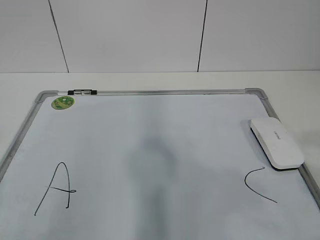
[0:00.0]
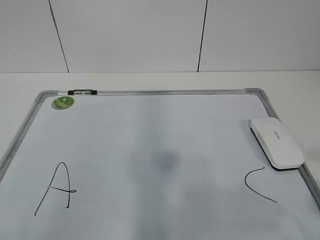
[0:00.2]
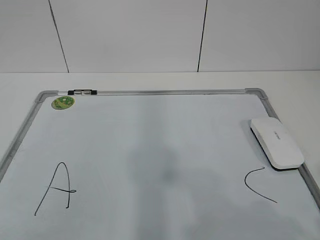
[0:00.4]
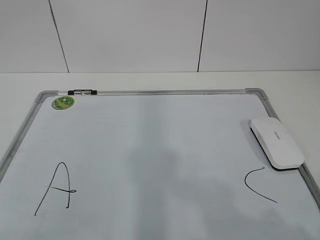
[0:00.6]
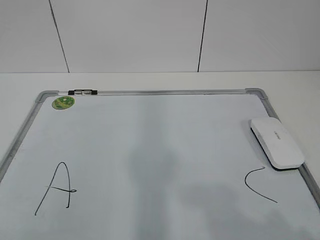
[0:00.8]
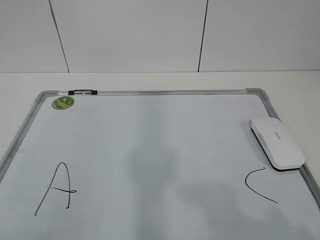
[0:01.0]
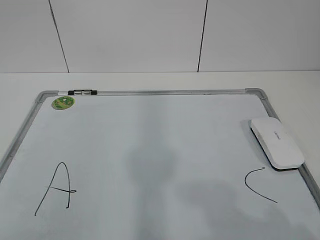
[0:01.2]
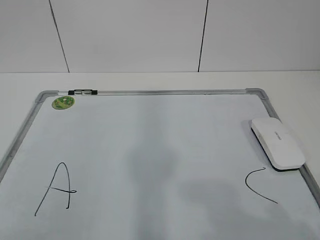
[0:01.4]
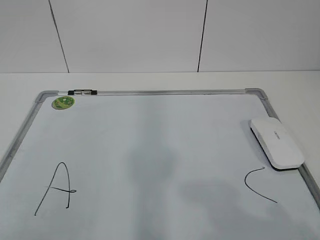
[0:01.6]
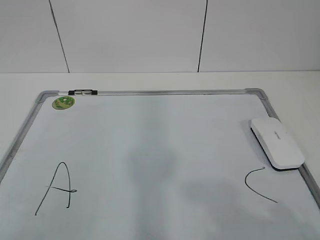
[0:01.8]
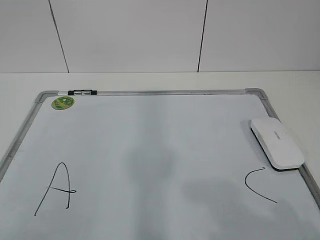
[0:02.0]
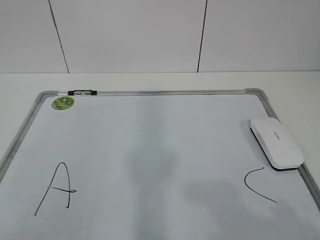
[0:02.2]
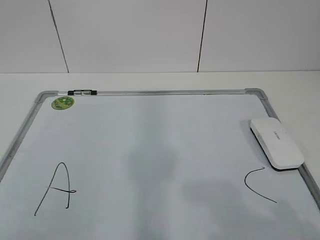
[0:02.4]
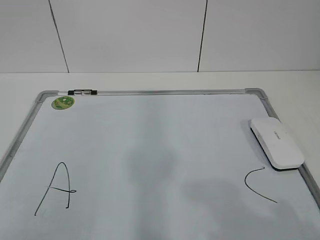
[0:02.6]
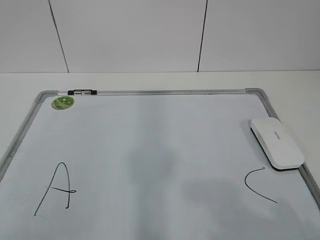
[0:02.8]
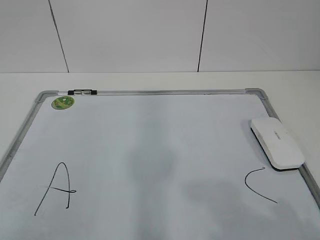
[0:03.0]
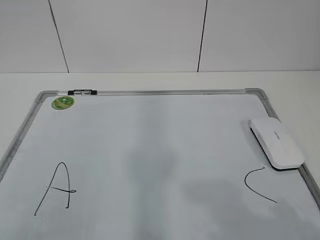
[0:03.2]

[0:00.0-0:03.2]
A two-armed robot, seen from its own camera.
Task of the whole recording: pick up the eraser on the blackboard and erase the letter "B".
0:00.0 to 0:01.6: The left gripper is displaced downward and backward by approximately 5 cm; the right gripper travels downward by about 10 cm.
0:01.6 to 0:03.2: The two grippers keep their place.

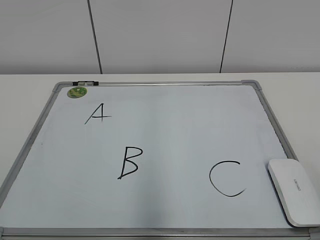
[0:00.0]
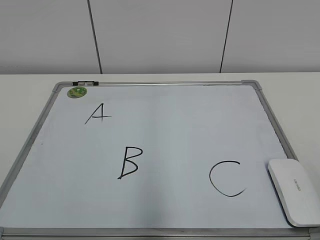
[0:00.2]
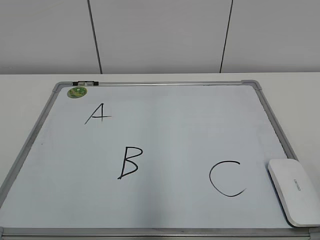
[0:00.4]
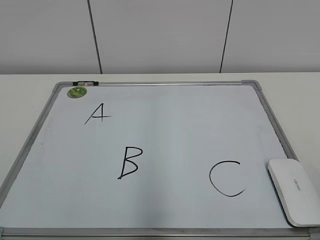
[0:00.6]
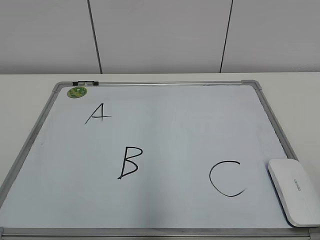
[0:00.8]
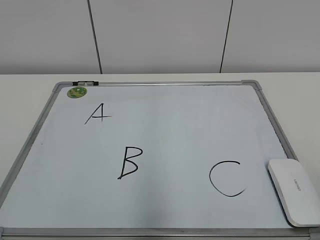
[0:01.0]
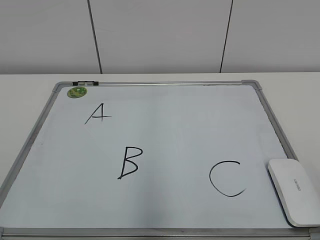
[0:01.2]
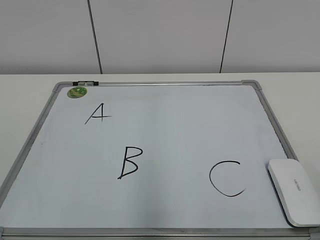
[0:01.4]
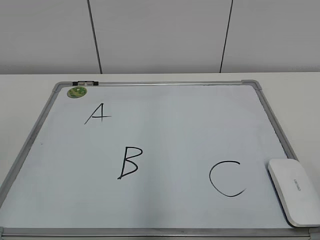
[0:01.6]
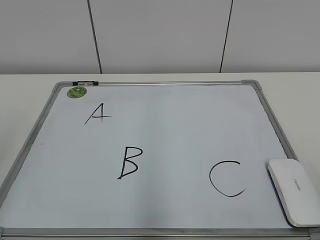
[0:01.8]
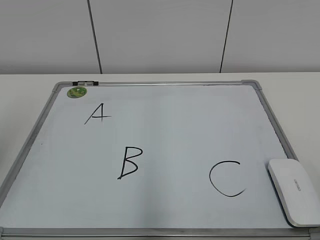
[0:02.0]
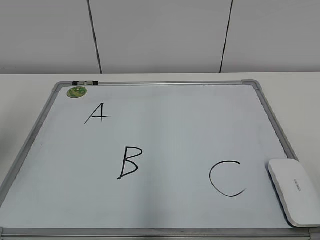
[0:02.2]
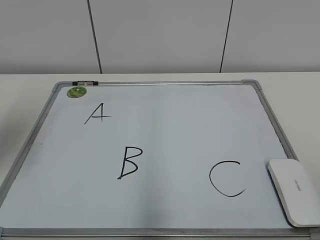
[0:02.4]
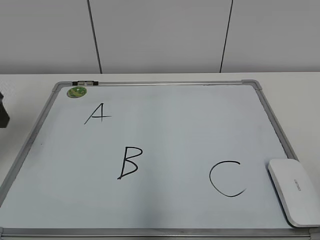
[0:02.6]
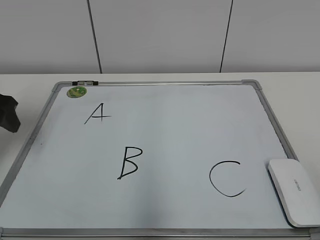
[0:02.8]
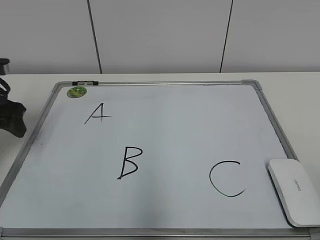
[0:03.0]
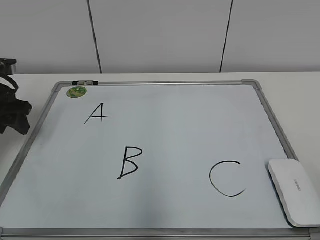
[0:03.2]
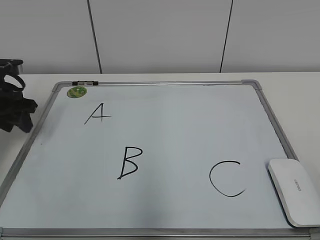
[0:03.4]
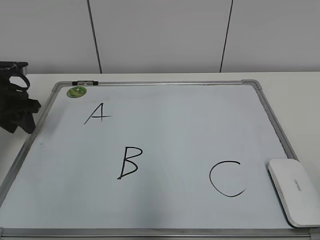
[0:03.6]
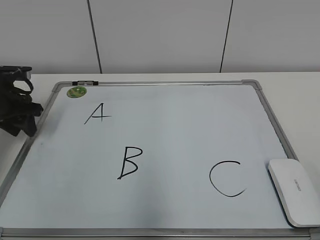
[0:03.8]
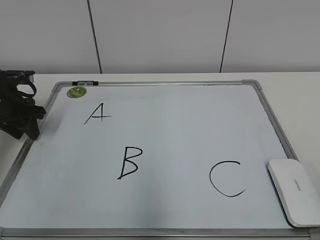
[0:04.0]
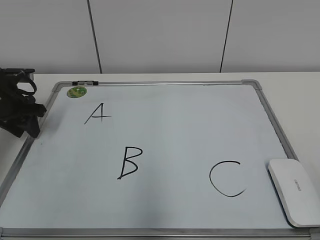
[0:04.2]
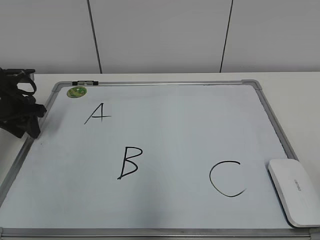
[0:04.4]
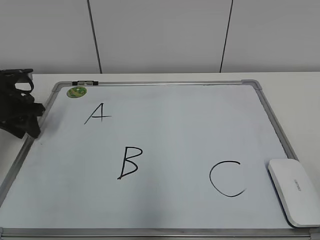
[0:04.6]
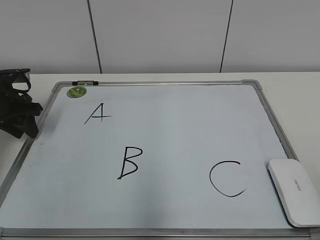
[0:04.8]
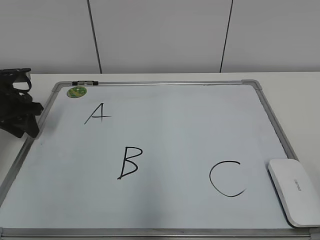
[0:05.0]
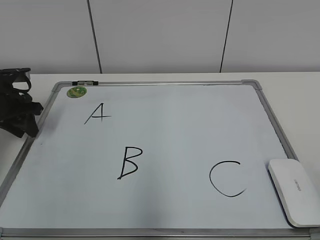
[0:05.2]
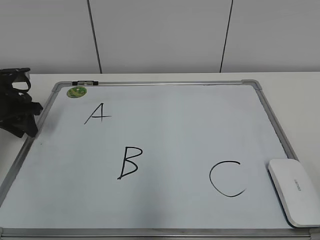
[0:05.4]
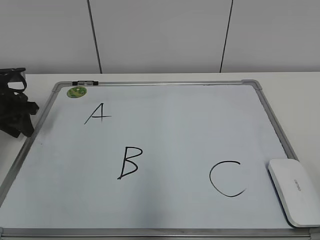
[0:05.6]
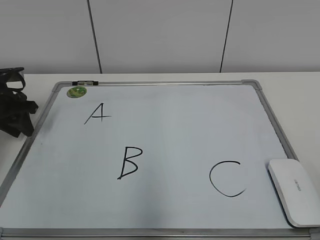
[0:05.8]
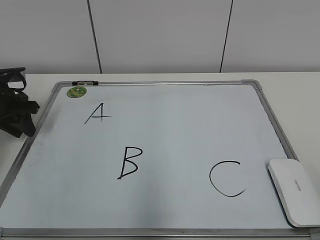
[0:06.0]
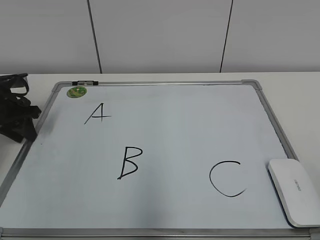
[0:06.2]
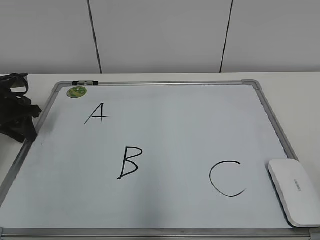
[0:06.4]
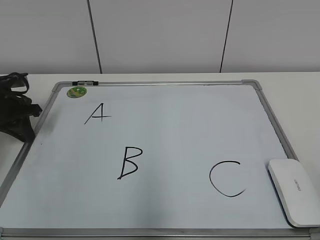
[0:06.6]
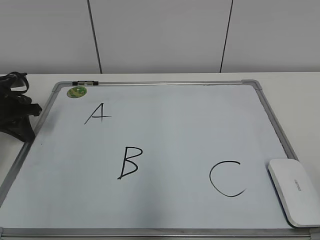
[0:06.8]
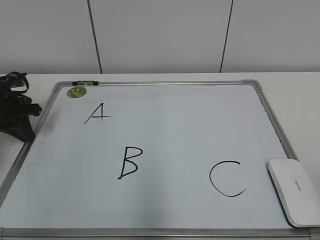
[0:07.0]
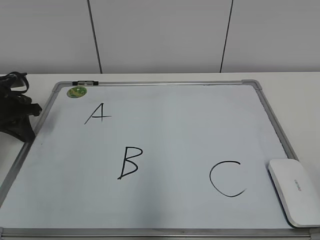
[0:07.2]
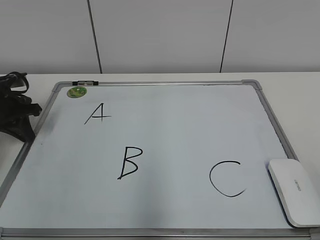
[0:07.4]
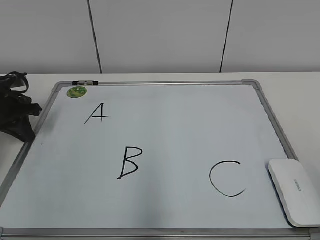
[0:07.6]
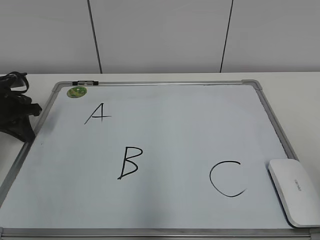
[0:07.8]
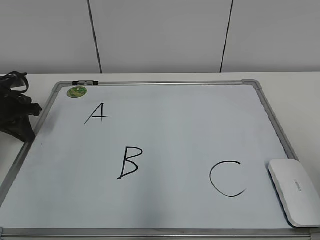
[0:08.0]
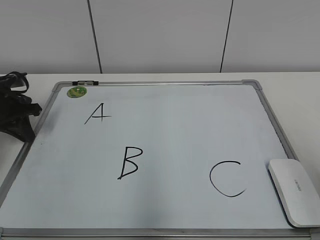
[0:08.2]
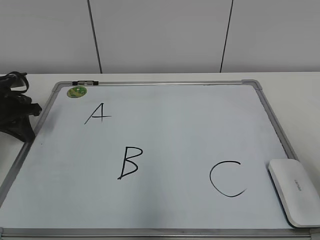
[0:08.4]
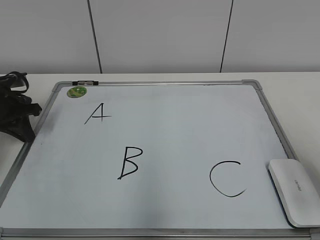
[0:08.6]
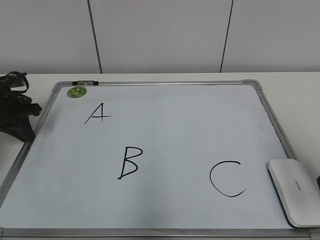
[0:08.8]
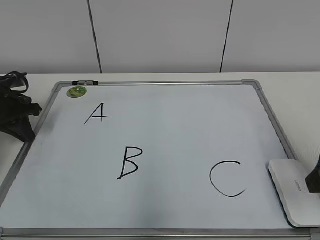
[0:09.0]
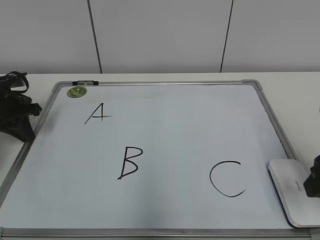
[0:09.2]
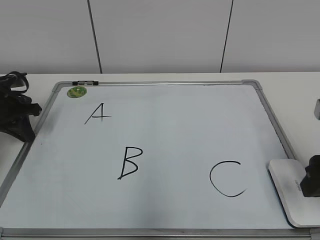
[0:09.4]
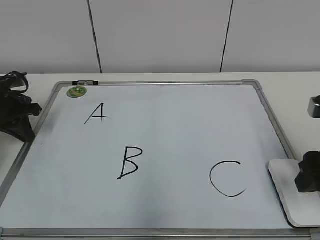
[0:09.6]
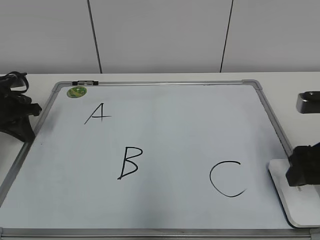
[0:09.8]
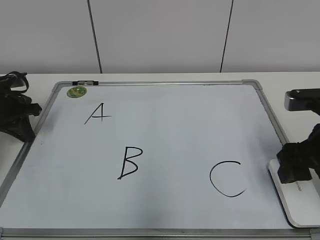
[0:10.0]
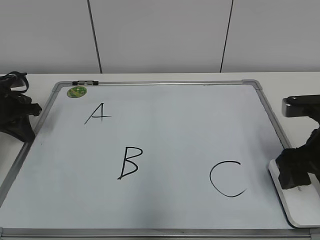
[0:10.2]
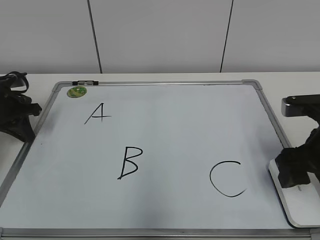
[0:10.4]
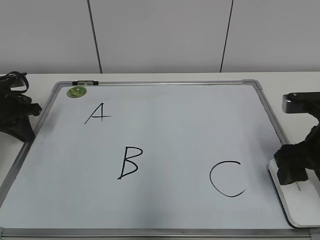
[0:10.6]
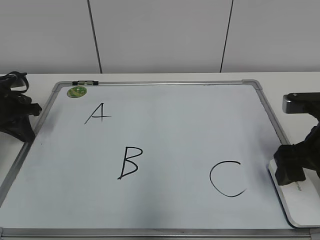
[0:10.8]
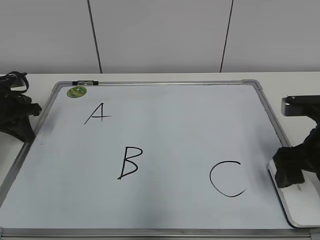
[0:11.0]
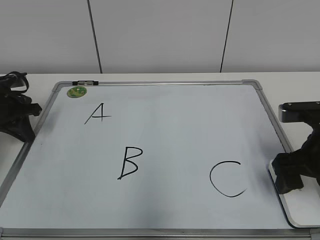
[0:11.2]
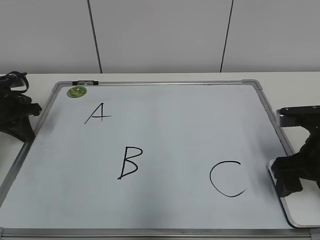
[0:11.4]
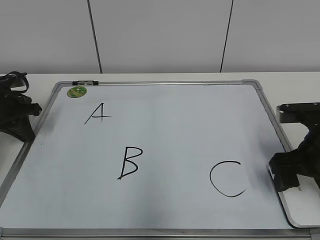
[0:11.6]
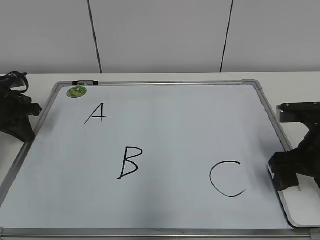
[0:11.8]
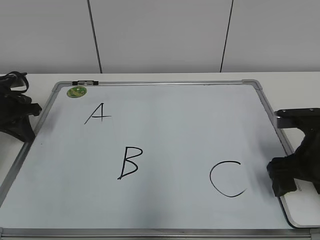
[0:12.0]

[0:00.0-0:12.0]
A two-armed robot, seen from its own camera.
Task of the whole recording: pick up the eraser on the blackboard and erase the letter "B".
Step, 0:00.0 to 0:07.4: Hold the drawing board steady with your left hand.
Step, 0:07.6 to 0:11.2: Grab the eraser with your right hand.
0:01.6 to 0:03.0: The left gripper moves forward and downward, about 30 cm.
0:03.0 to 0:04.4: The left gripper shifts roughly 5 cm forward.
0:04.4 to 0:06.0: There are only small adjustments of the grippers.
0:06.0 to 0:07.6: The left gripper closes its fingers.
0:07.6 to 0:09.0: The right gripper moves forward, about 15 cm.
0:09.0 to 0:10.4: The right gripper moves forward, some 5 cm.
0:10.4 to 0:12.0: The right gripper opens its fingers.

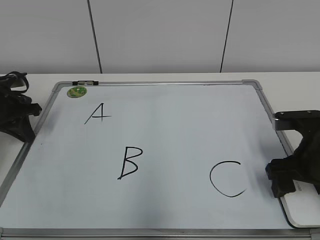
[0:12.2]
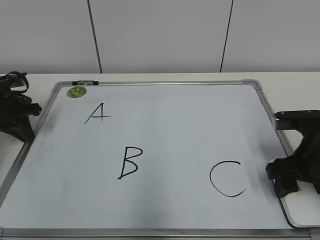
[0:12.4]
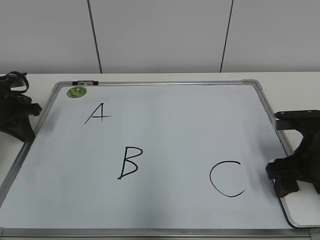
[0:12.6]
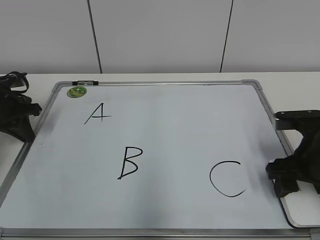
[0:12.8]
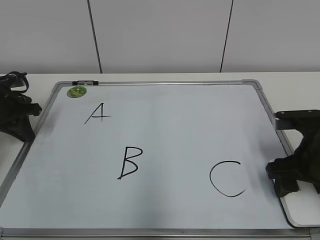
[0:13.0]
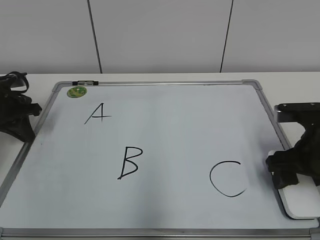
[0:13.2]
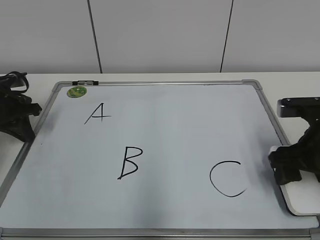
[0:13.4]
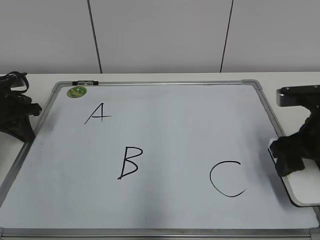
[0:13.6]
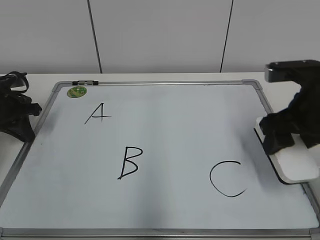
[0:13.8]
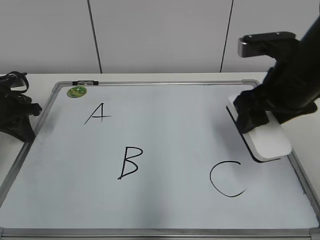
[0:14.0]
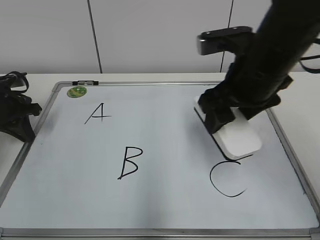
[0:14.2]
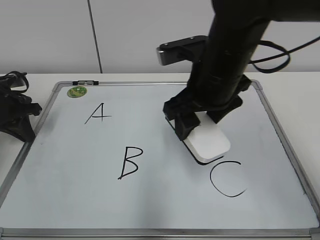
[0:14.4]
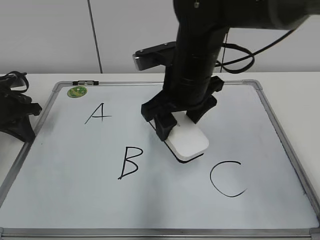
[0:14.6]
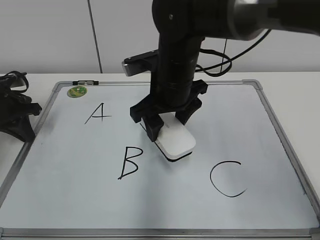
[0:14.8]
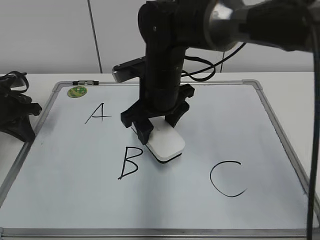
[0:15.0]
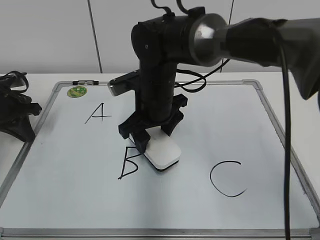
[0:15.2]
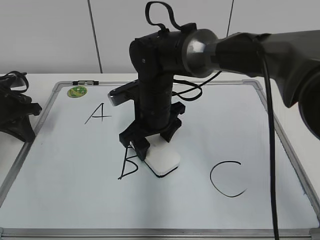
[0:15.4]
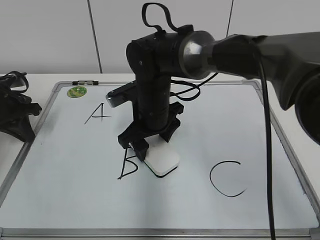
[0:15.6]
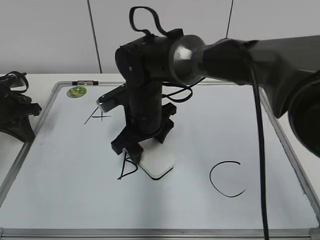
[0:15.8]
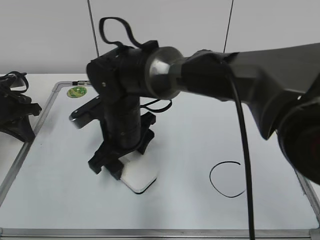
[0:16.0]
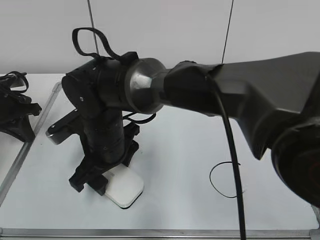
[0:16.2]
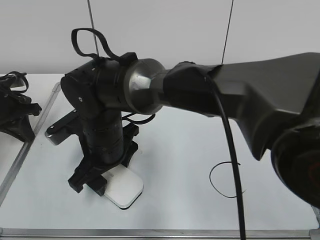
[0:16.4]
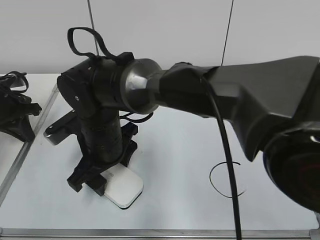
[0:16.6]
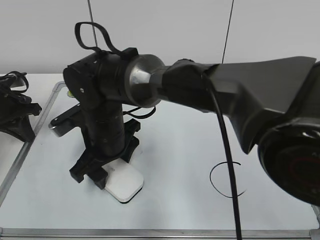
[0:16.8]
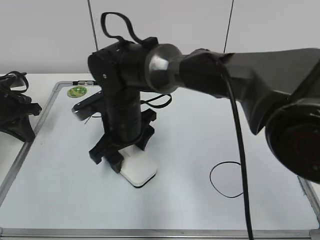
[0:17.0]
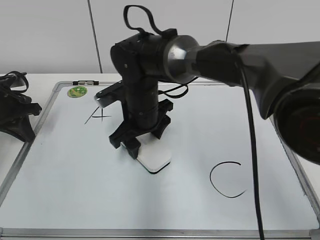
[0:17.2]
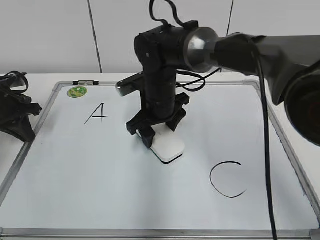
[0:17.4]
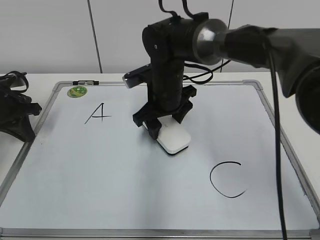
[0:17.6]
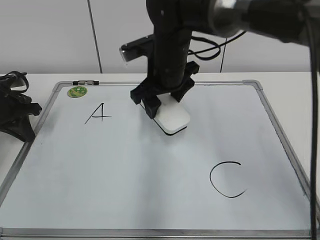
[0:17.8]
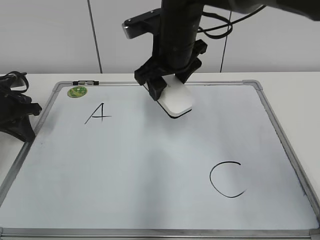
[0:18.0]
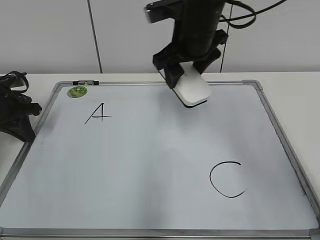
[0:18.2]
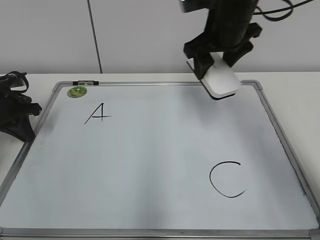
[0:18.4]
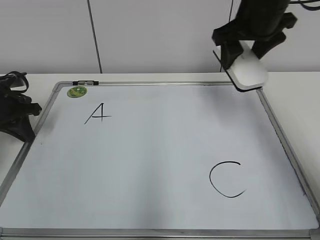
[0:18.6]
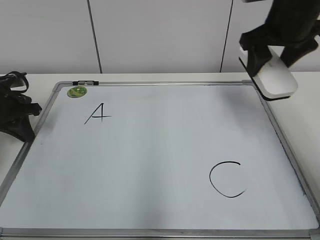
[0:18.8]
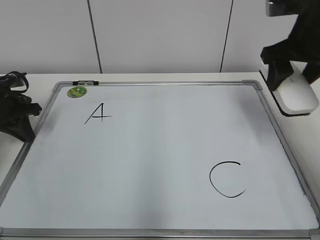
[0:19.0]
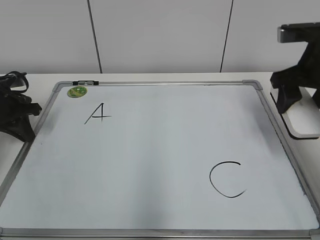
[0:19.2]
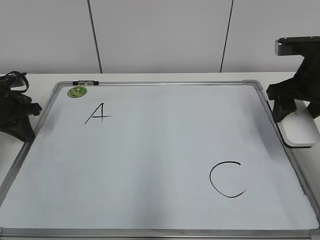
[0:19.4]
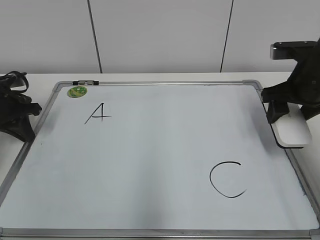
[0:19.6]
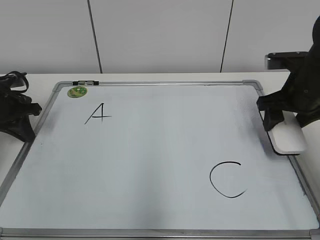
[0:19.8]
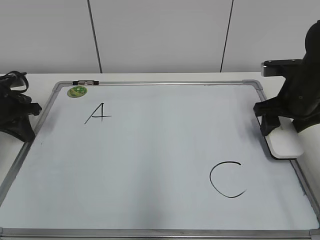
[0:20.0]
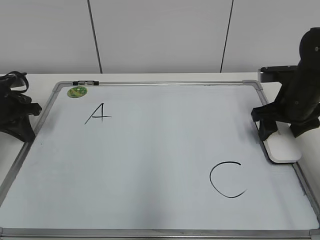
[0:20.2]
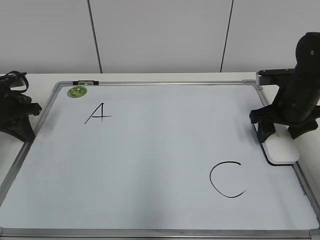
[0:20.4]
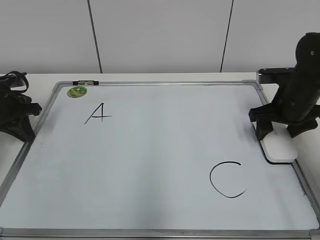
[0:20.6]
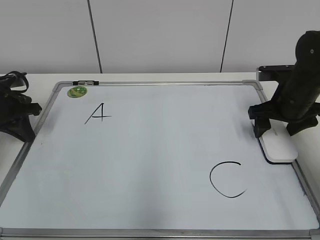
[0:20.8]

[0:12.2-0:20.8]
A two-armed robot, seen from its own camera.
Task of the whole recording: pick up the eraser on the blackboard and erase the letter "B".
Step, 0:12.2 to 0:17.4: Erase the letter B with your right hand.
Step, 0:17.8 to 0:20.6: Put down the eraser with your right hand.
0:12.2 to 0:13.6: The right gripper closes up.
0:13.6 to 0:15.0: The right gripper heads to the left and forward, covering some 25 cm.
0:15.0 to 0:16.6: The right gripper moves to the left, backward and downward, approximately 15 cm.
0:16.6 to 0:18.0: The right gripper goes some 20 cm to the right, upward and forward.
0:18.0 to 0:19.4: The right gripper is displaced to the right by approximately 20 cm.
0:19.4 to 0:20.8: The right gripper goes about 10 cm downward, and opens its fingers.
